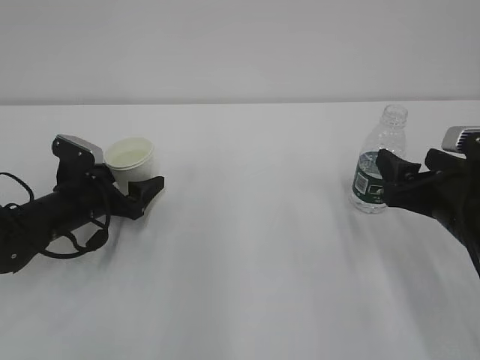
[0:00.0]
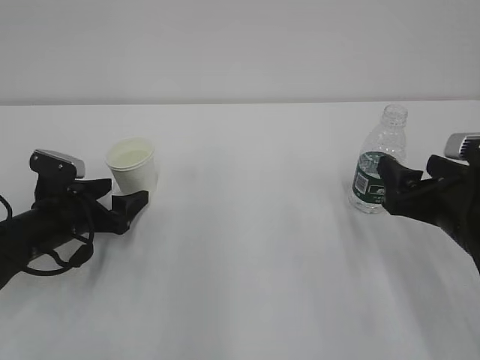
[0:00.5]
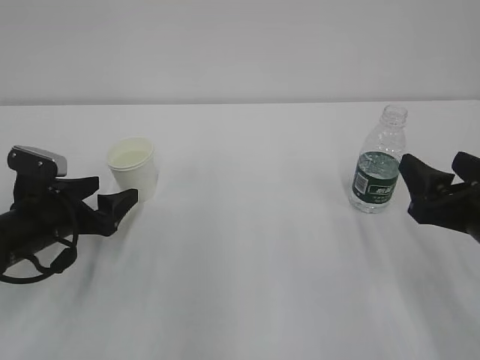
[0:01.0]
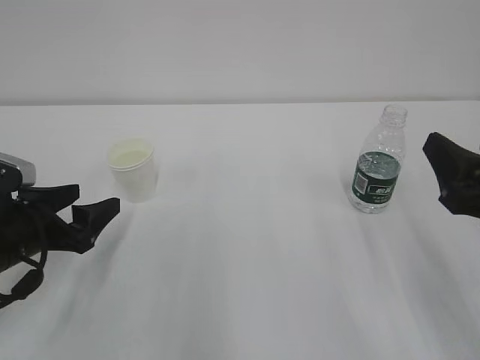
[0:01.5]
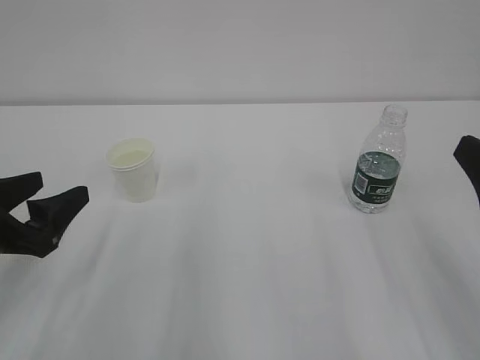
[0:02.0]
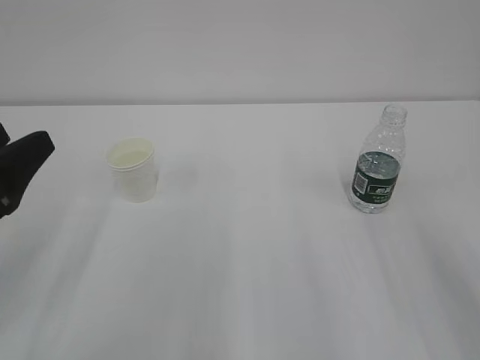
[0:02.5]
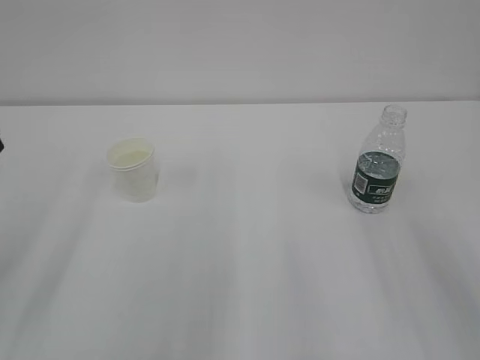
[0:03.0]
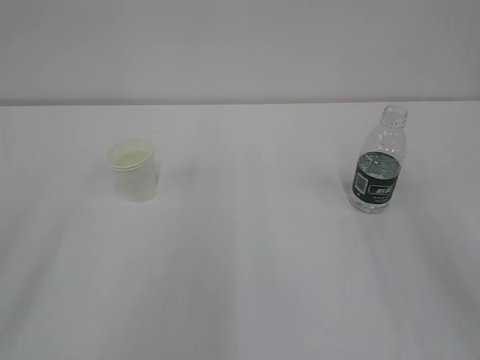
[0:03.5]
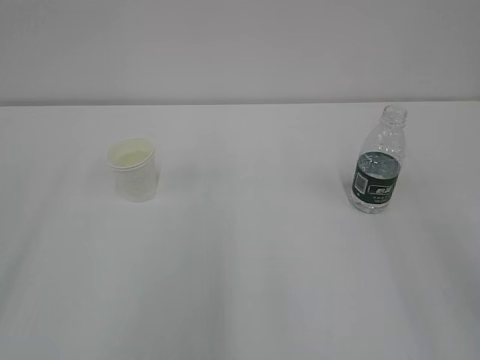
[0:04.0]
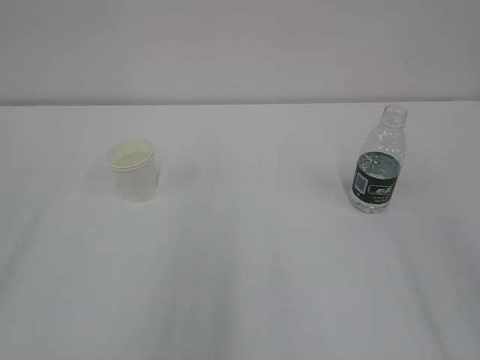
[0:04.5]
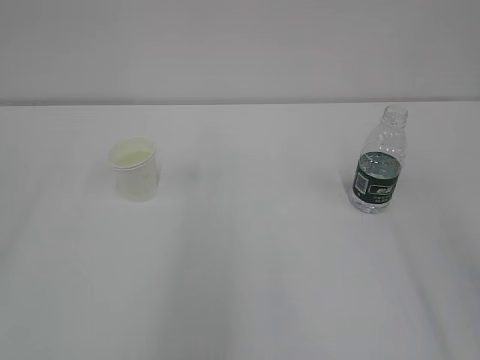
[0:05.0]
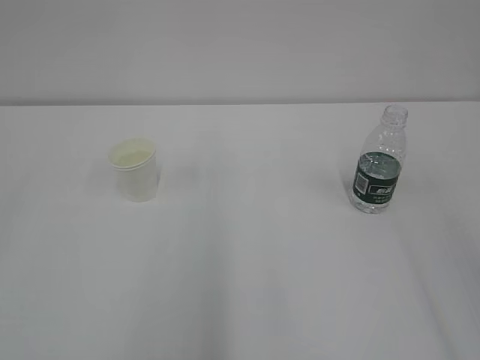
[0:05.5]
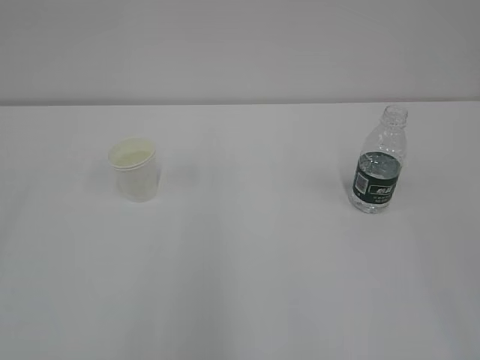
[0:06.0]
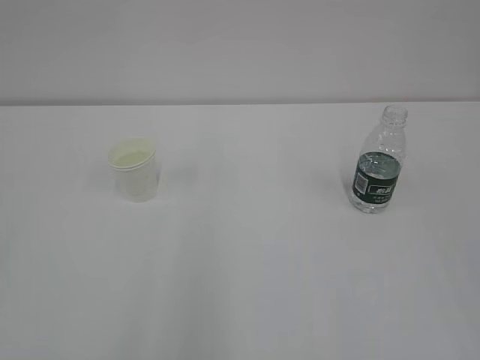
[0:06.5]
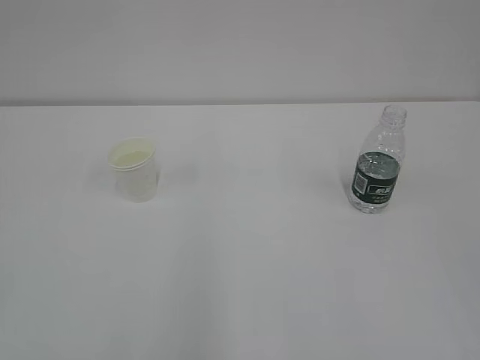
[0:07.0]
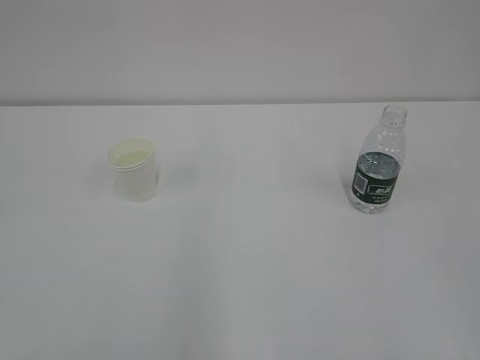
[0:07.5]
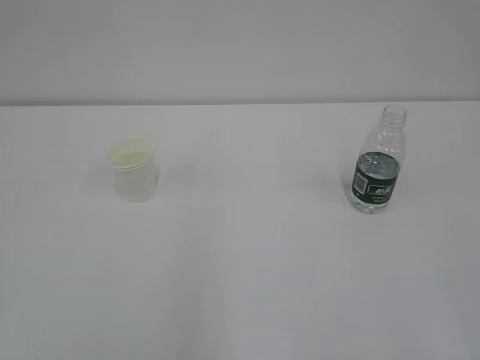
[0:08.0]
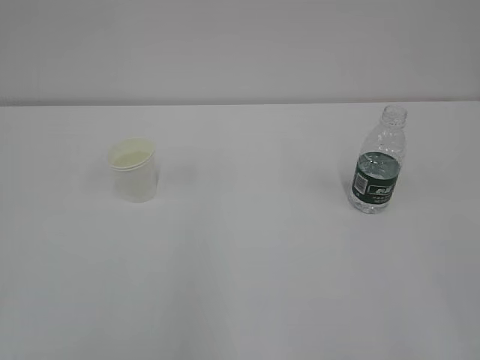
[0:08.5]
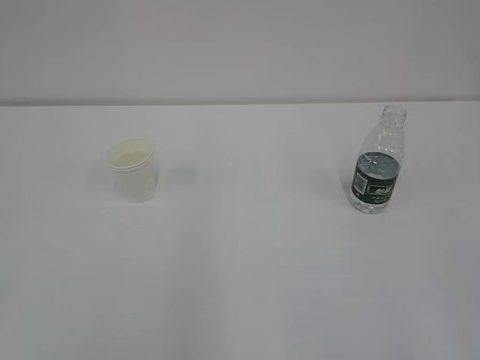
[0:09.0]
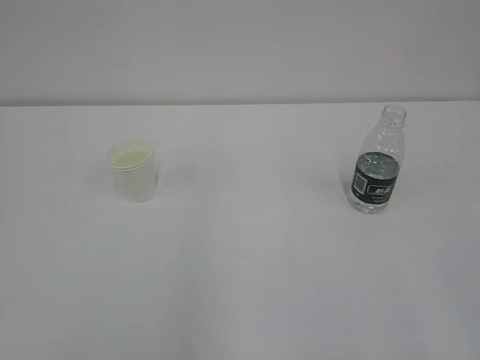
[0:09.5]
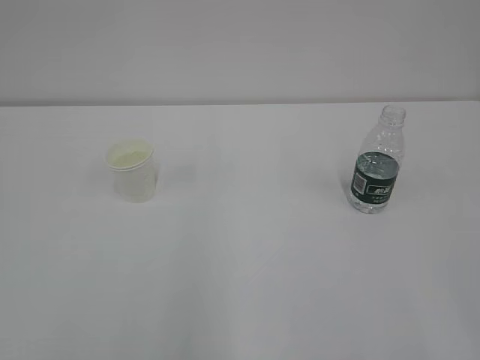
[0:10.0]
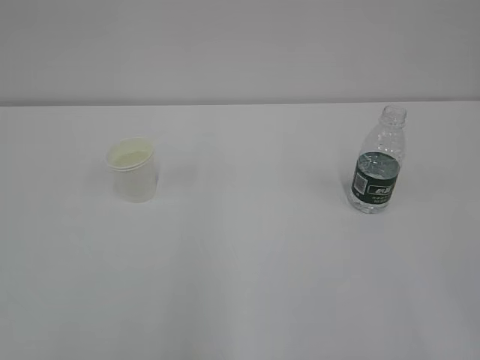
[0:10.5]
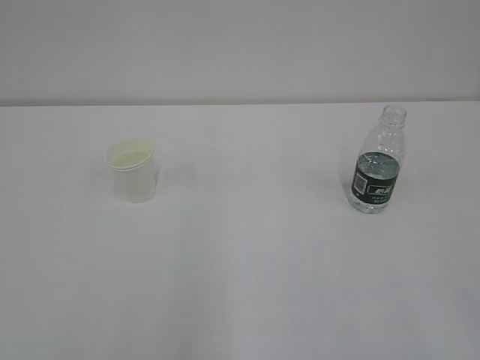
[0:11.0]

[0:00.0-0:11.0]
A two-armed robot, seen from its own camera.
0:00.0 to 0:02.0: Both grippers move backward and upward, approximately 15 cm.
0:02.0 to 0:03.5: The left gripper heads upward and backward, covering some 15 cm.
